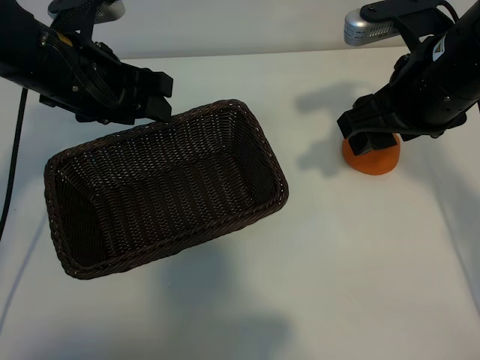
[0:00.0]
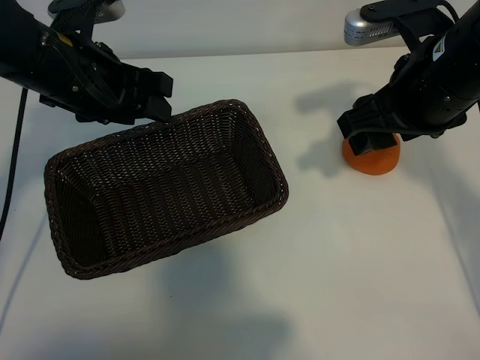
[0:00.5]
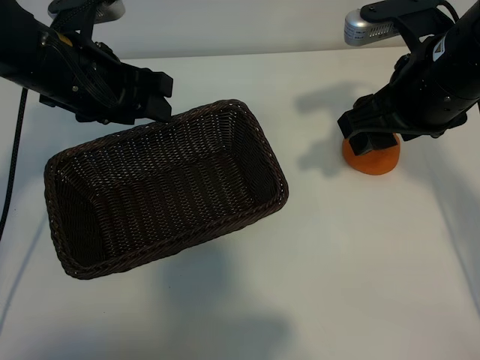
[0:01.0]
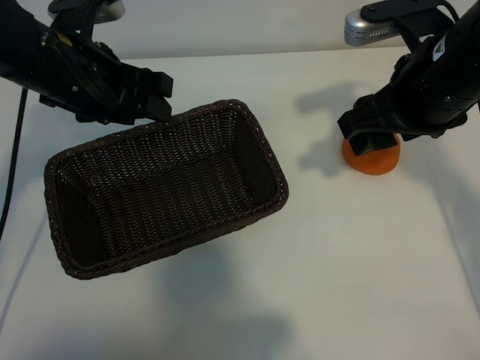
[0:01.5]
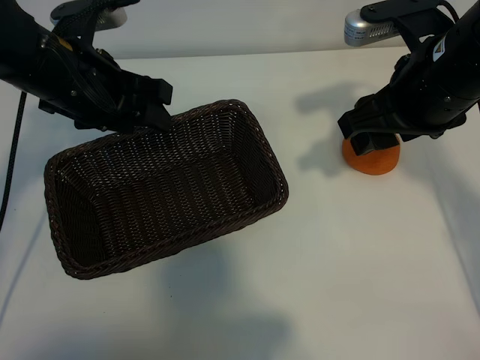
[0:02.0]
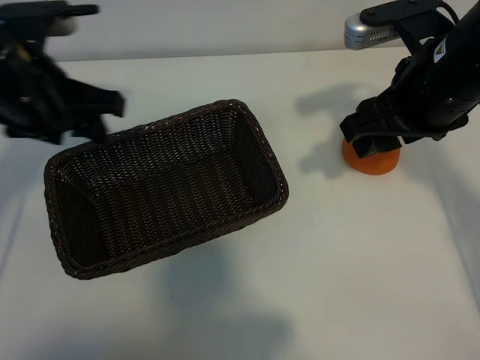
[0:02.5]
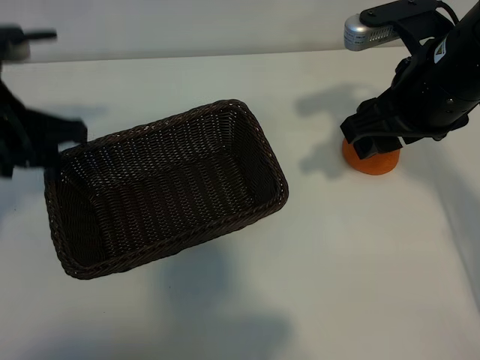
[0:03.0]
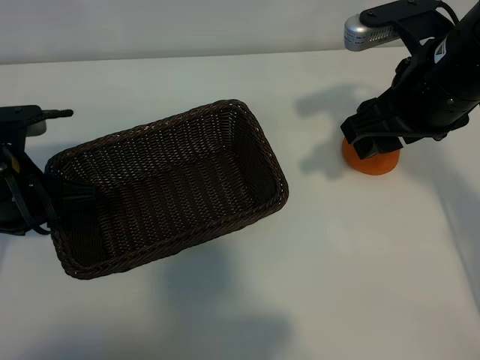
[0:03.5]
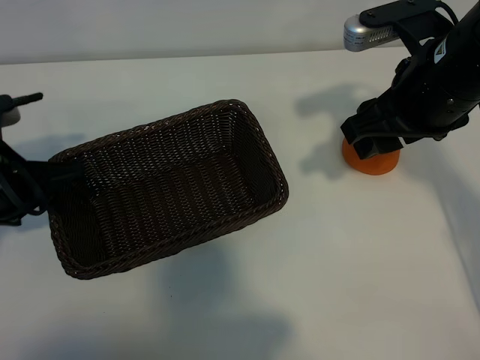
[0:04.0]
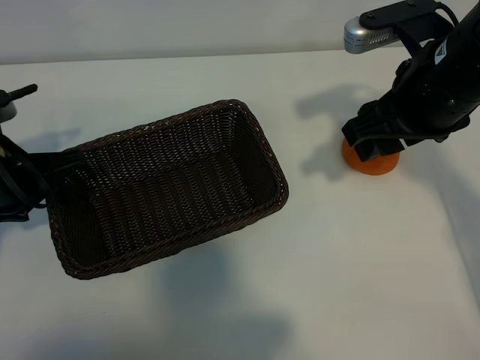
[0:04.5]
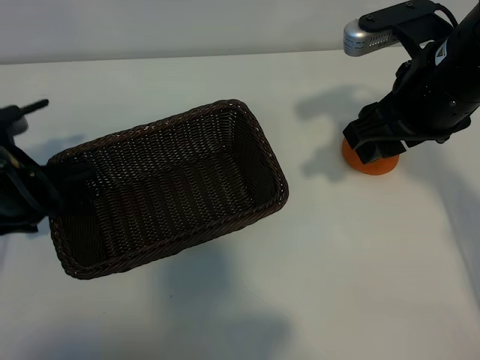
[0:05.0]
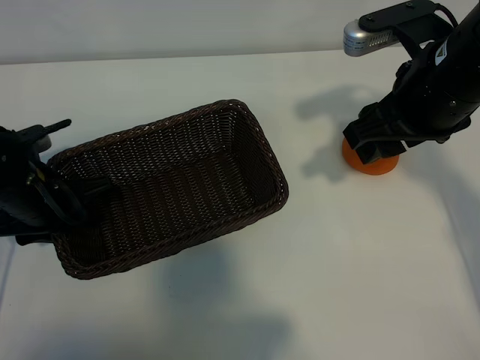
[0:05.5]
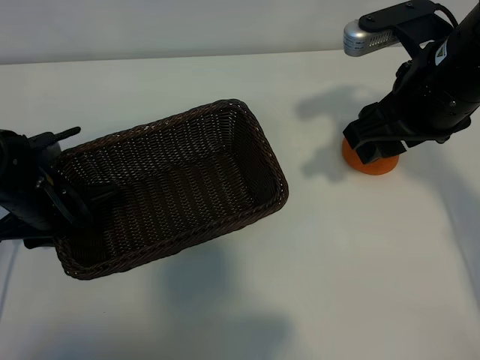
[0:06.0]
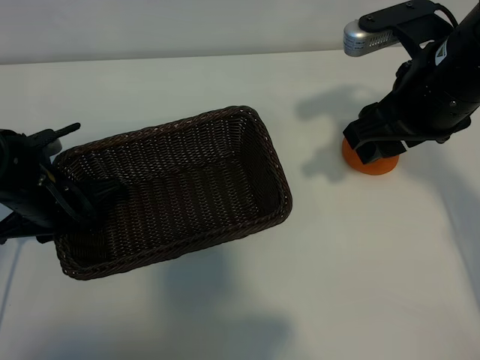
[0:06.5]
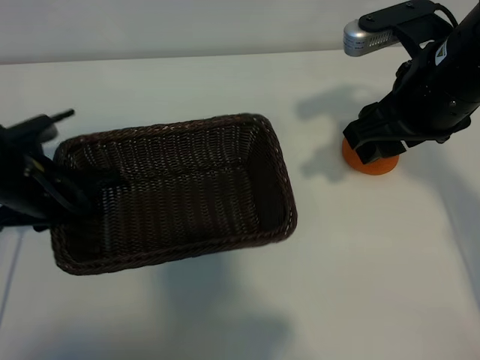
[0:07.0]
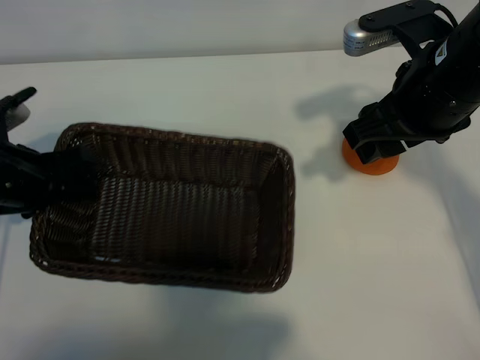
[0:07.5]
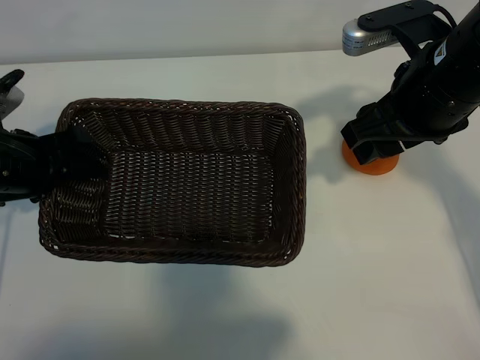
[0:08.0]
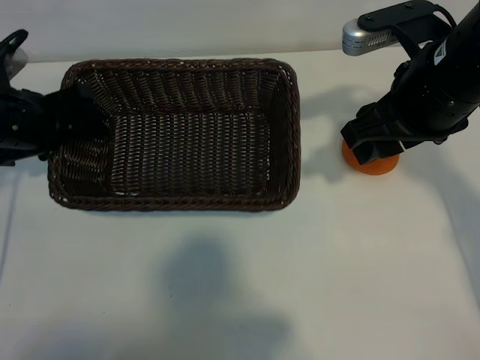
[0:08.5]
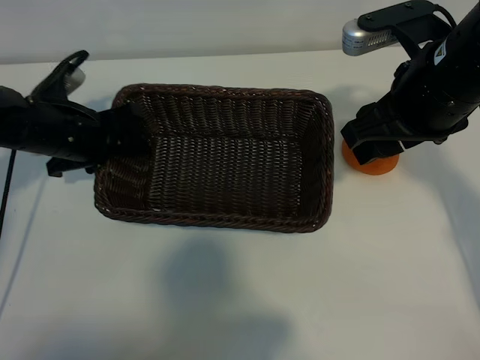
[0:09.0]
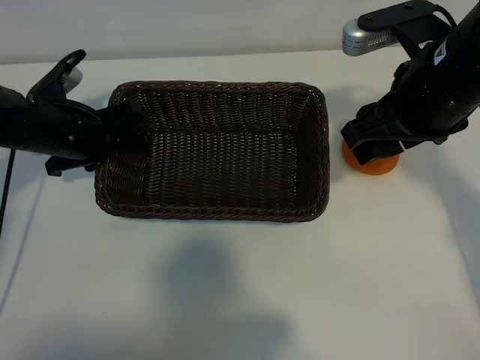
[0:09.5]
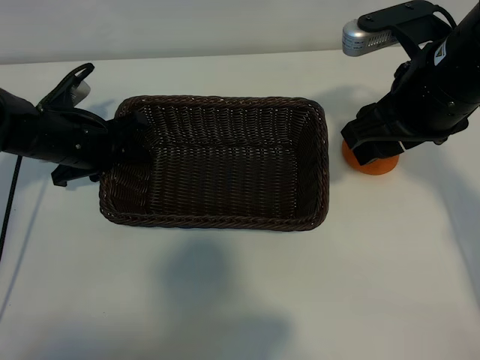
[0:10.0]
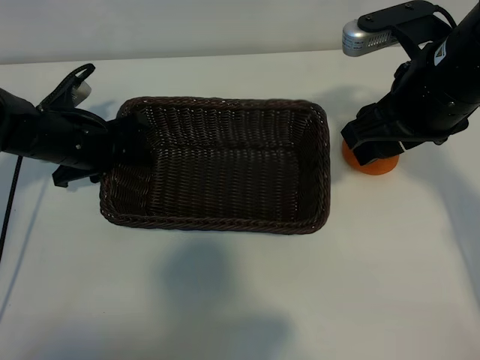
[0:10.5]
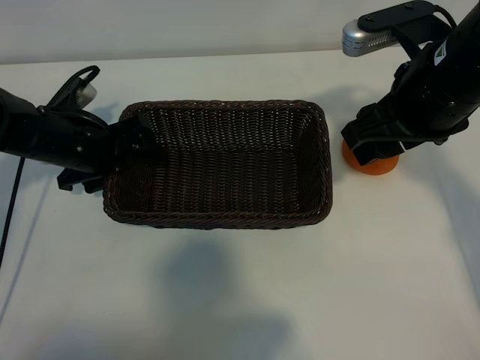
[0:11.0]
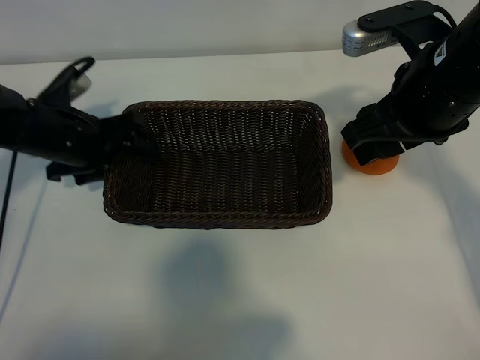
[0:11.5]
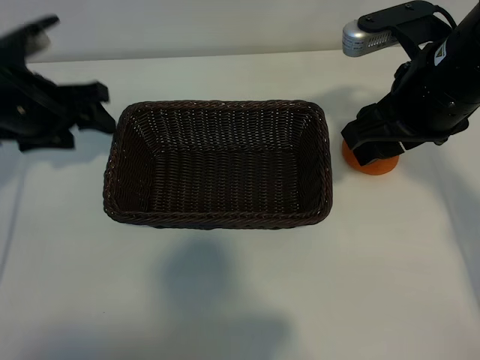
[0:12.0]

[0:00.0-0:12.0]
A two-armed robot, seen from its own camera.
Task of the whole recording: pick up the orange and put it into the basket.
Step, 0:02.0 to 0:06.5: Grasp the basket with left gripper.
Step, 0:07.0 to 0:10.5: Place the basket in the center of view with left gripper.

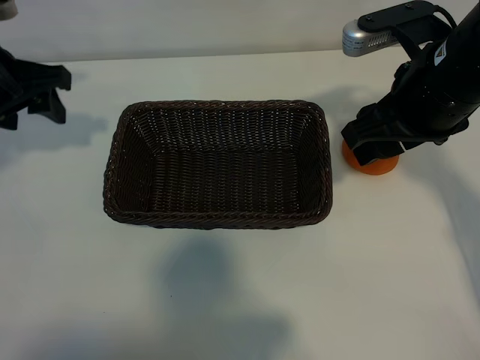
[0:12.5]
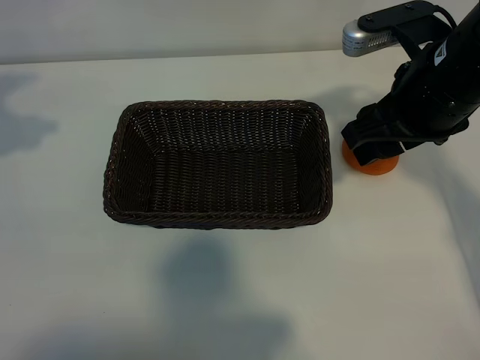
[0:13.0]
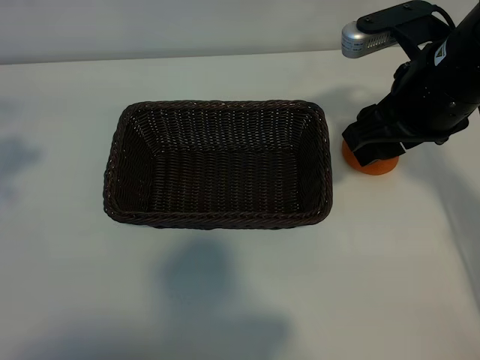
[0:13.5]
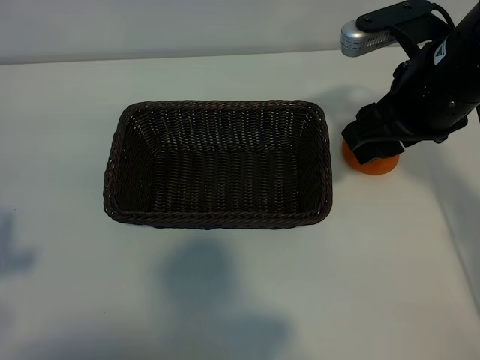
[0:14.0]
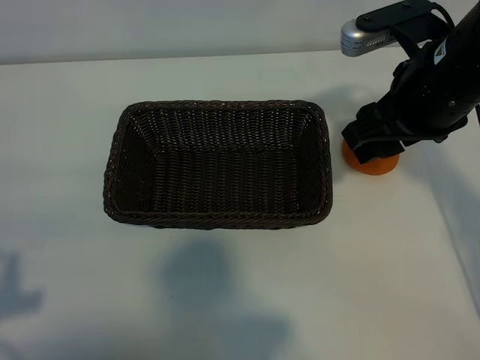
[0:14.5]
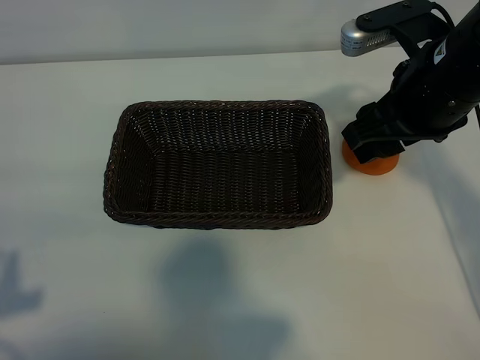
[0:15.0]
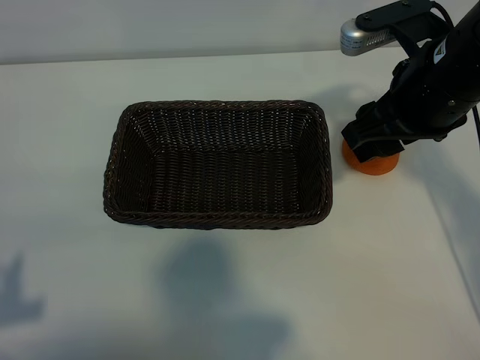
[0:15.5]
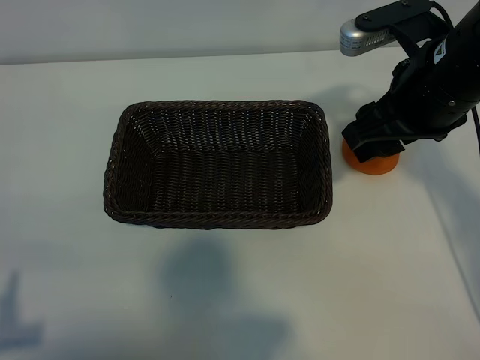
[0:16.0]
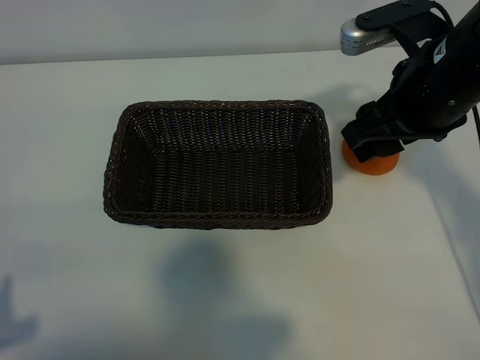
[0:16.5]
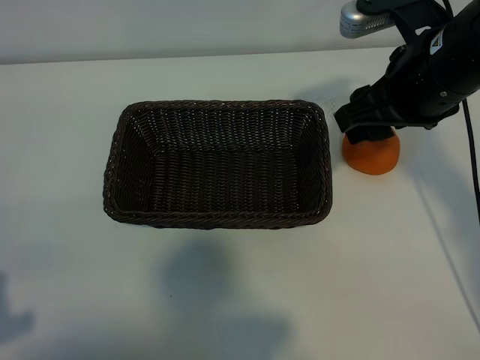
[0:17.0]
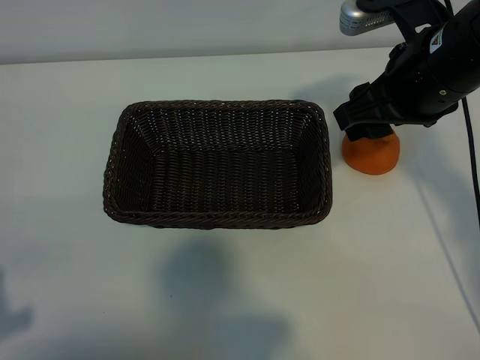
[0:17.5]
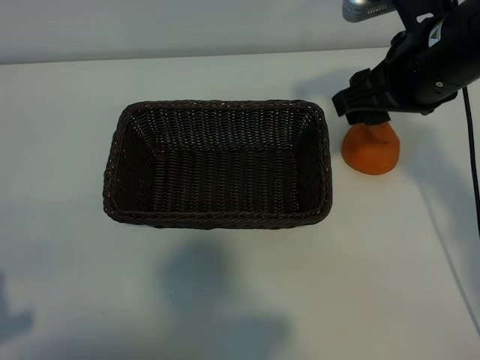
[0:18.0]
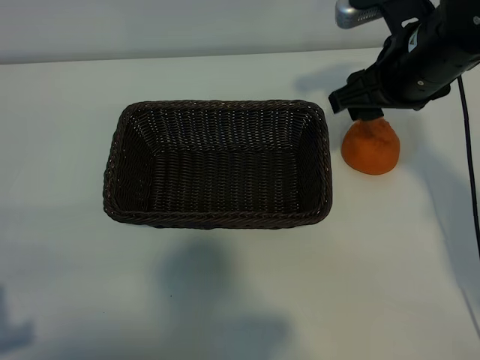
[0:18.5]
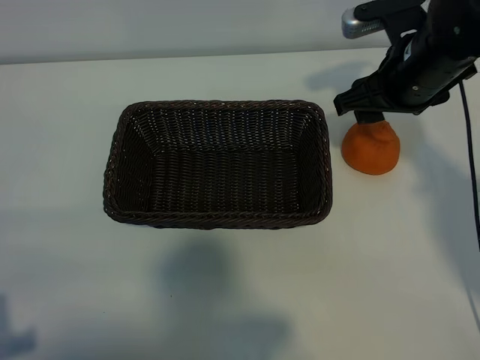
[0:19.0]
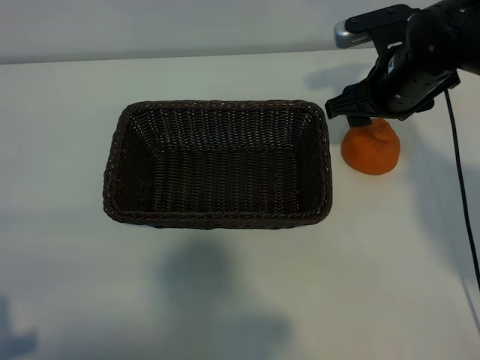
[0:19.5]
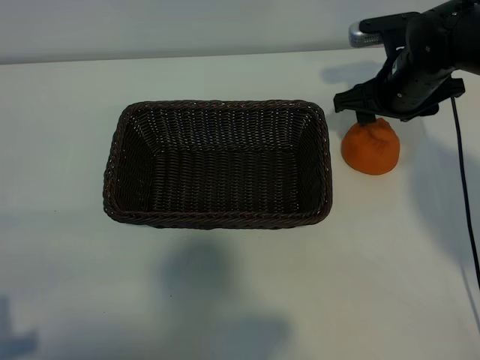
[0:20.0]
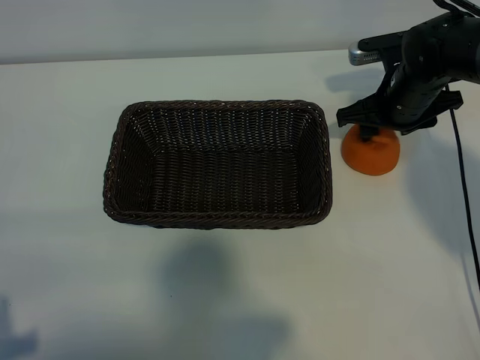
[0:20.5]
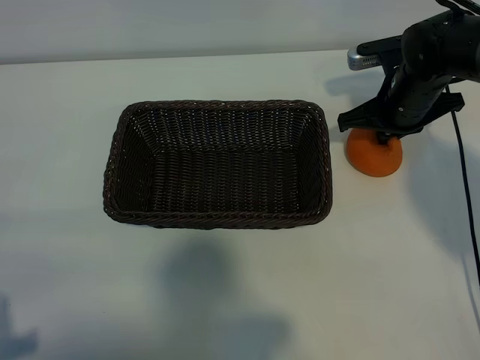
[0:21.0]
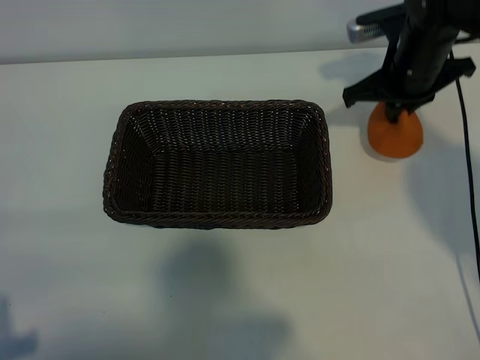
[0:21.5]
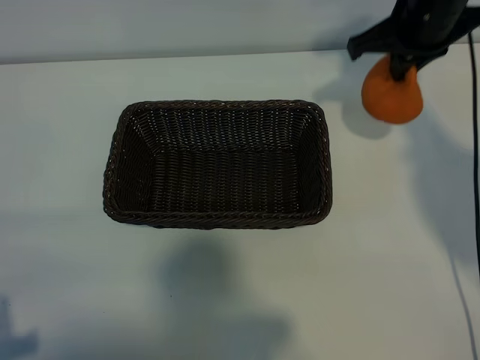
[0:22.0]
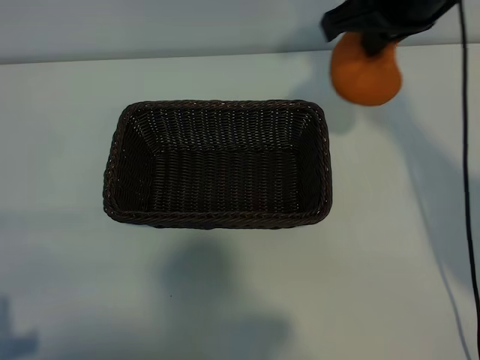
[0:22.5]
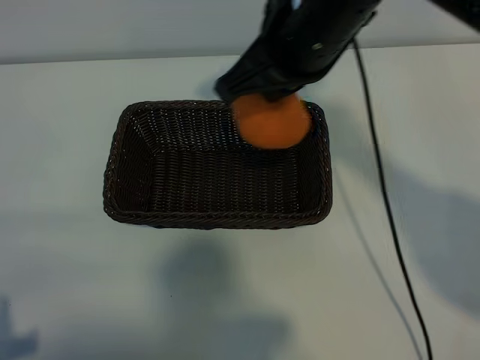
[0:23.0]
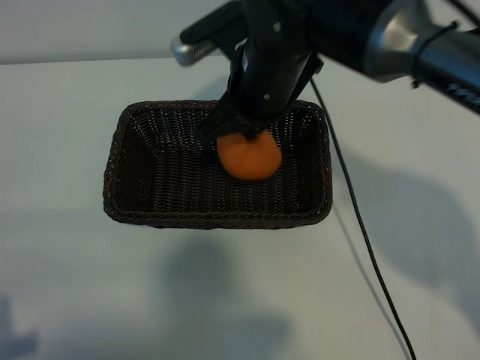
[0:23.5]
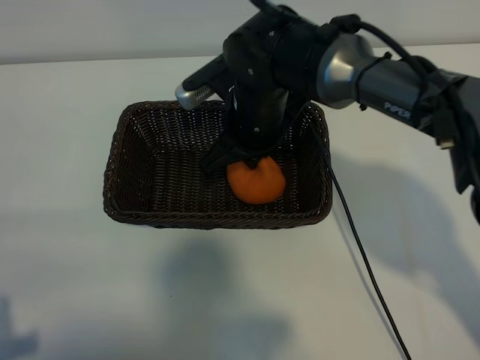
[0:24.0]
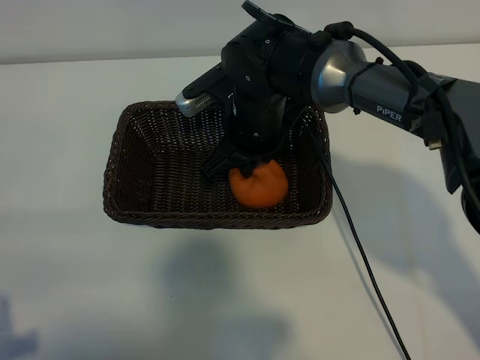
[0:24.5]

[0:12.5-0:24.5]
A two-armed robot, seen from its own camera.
Task of the whole recording: pick up the orange and put it into the basket.
Step, 0:12.5 to 0:21.0: Grasp the orange with right gripper.

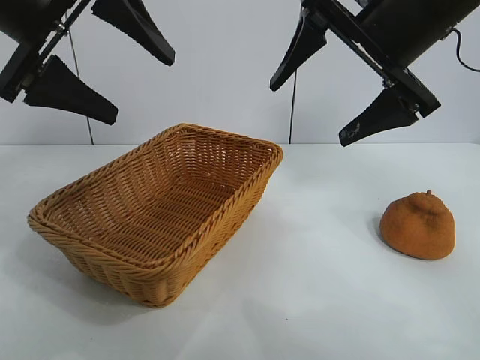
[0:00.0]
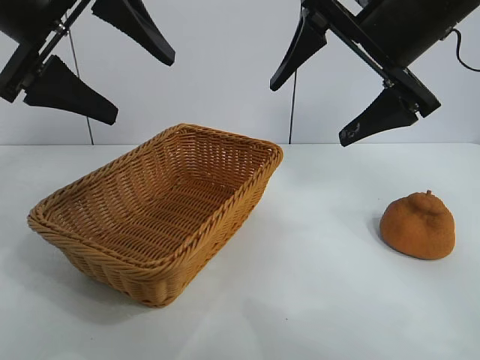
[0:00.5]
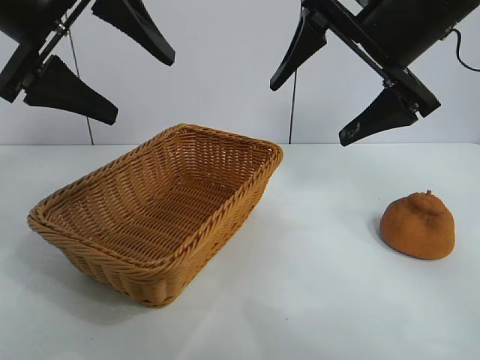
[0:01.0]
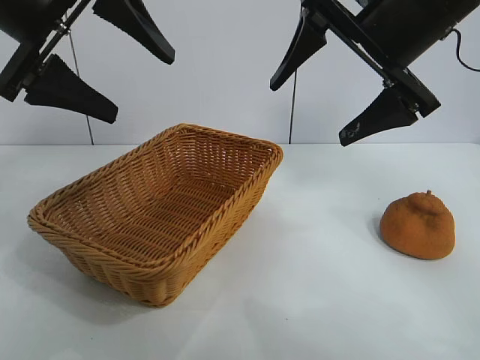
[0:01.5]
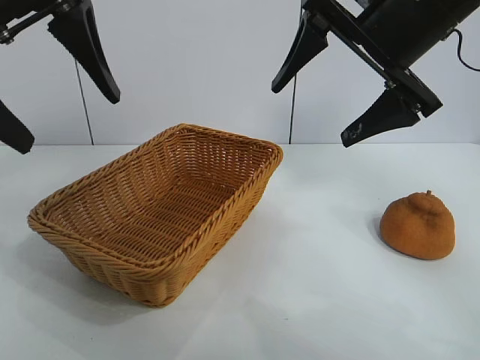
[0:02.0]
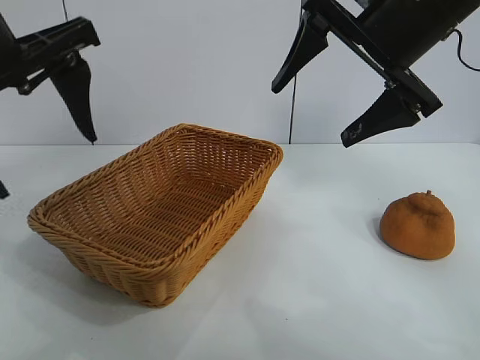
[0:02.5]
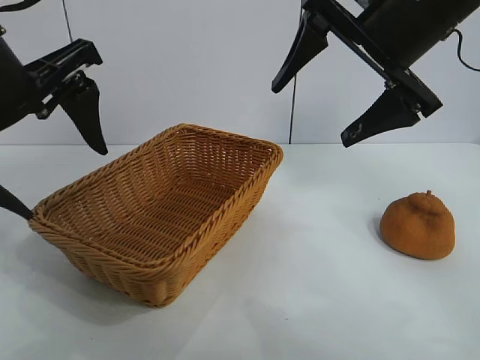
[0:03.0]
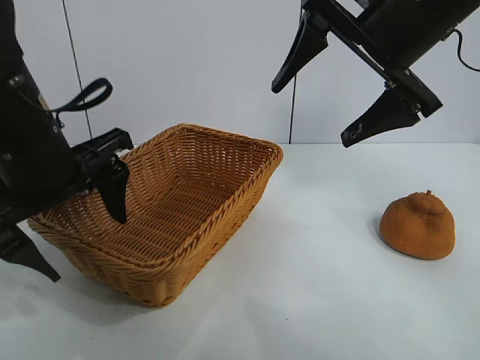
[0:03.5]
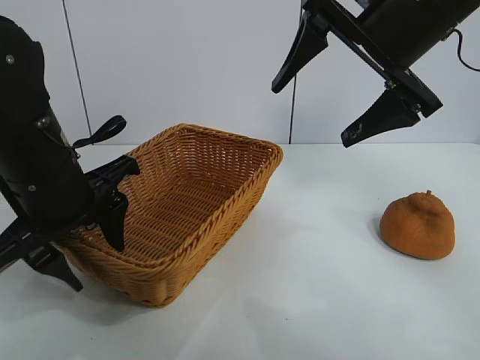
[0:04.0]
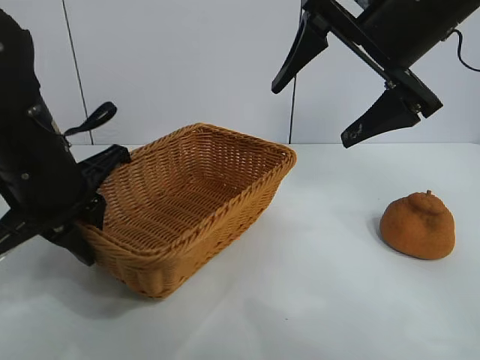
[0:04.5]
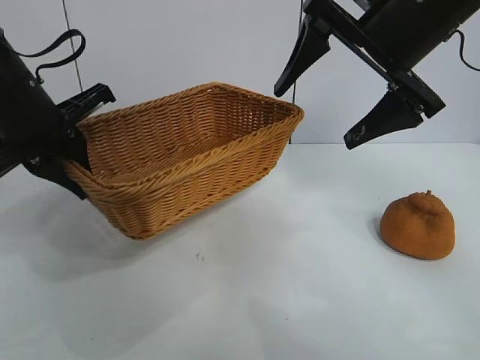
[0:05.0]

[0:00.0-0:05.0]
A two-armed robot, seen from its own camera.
Task of the whole recording: pick up the orange and put it into the basket.
Step, 0:02.0 to 0:04.0: Grasp the basket with left gripper.
